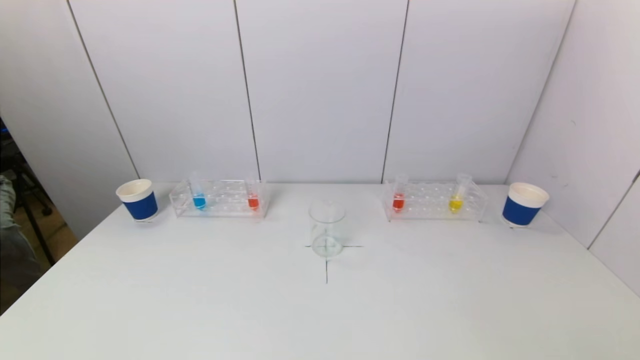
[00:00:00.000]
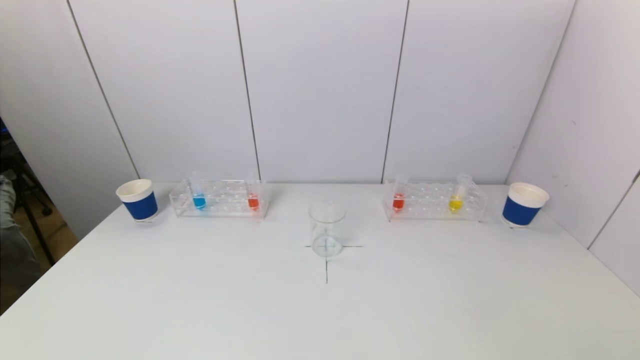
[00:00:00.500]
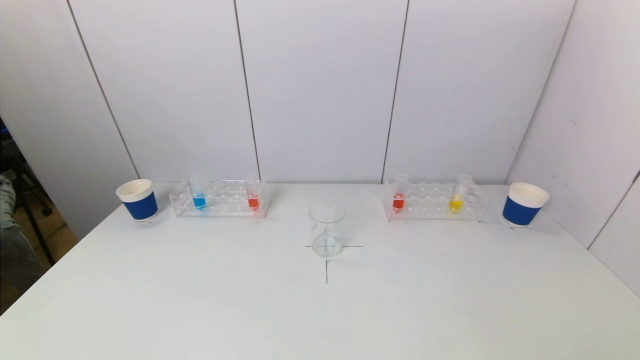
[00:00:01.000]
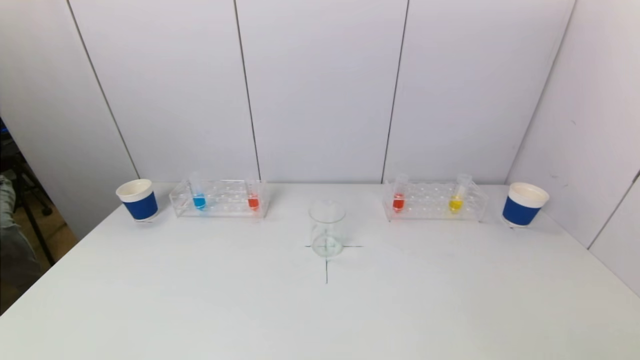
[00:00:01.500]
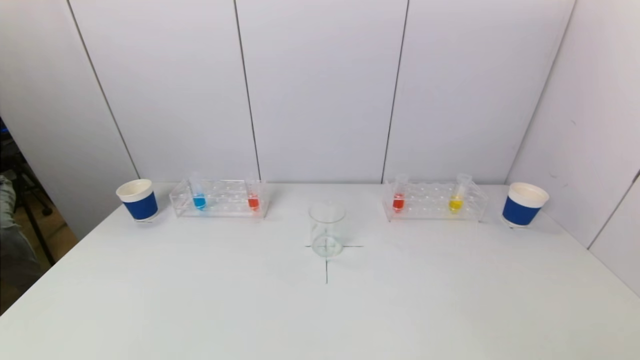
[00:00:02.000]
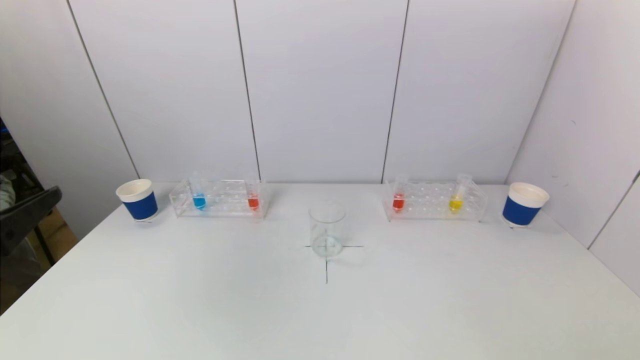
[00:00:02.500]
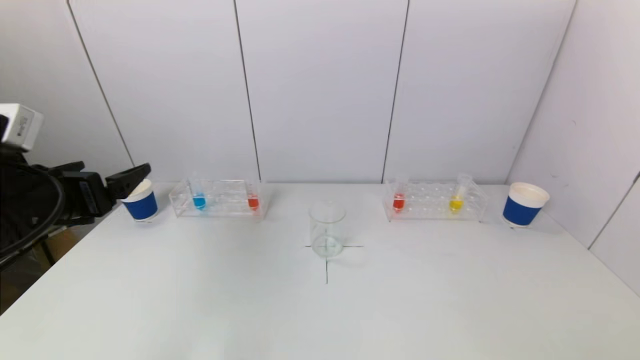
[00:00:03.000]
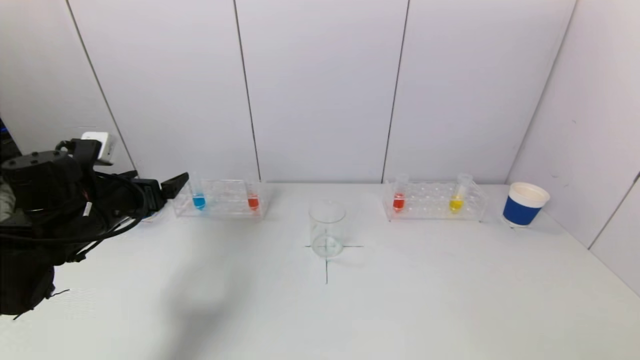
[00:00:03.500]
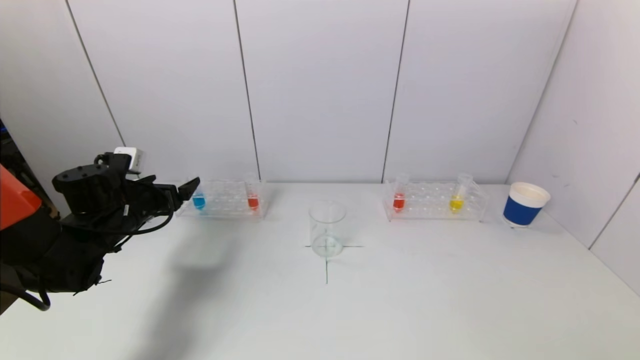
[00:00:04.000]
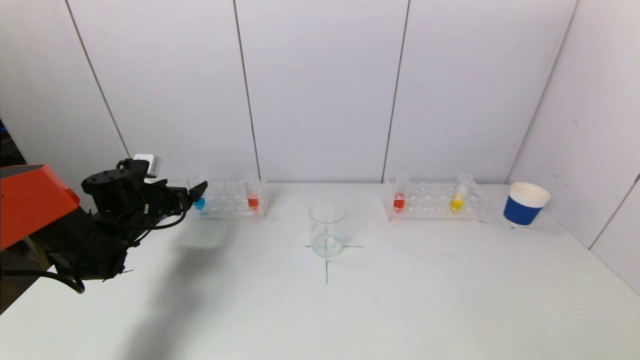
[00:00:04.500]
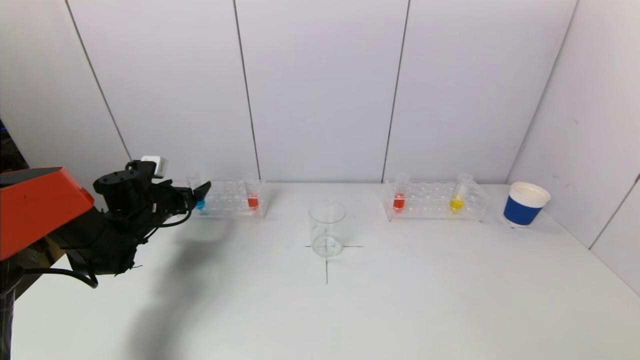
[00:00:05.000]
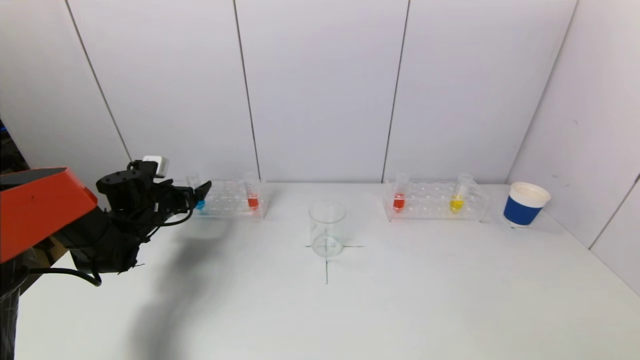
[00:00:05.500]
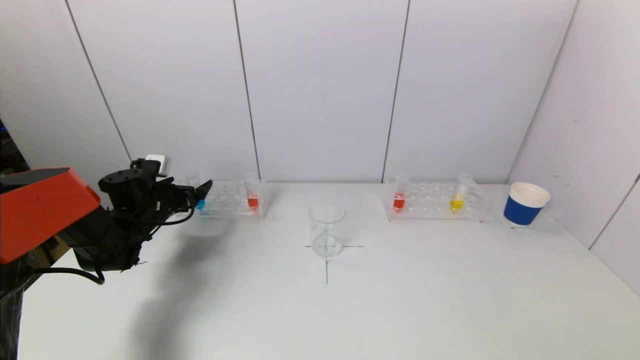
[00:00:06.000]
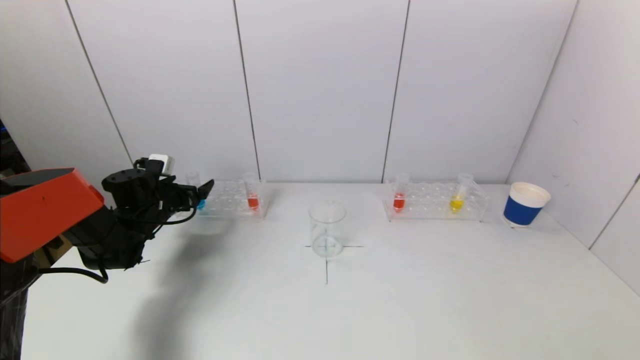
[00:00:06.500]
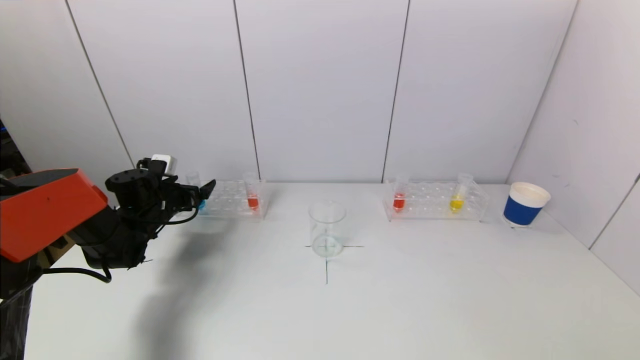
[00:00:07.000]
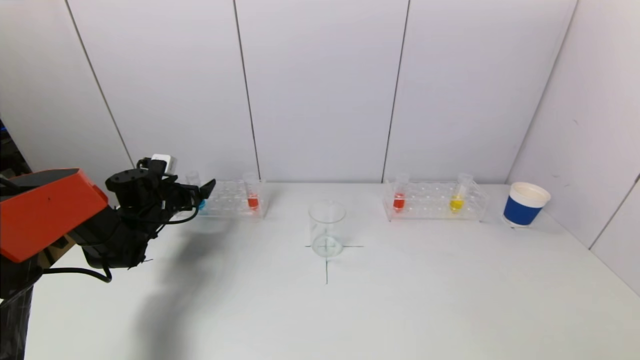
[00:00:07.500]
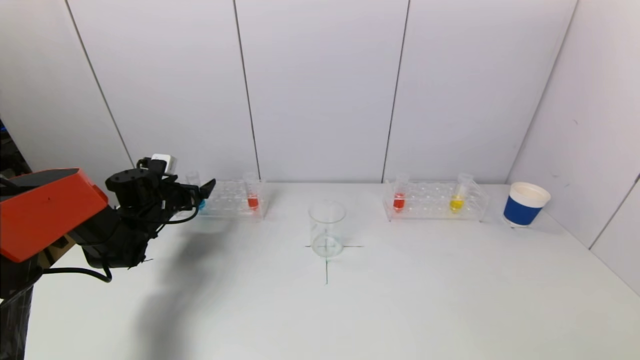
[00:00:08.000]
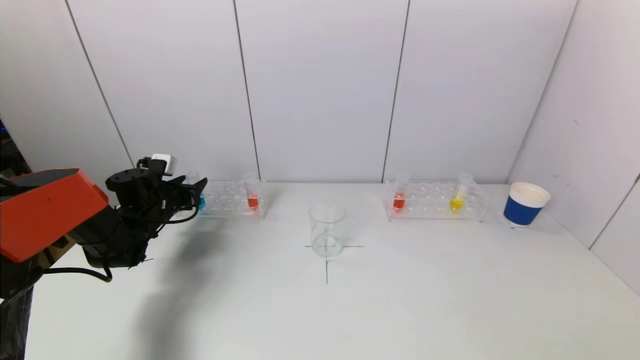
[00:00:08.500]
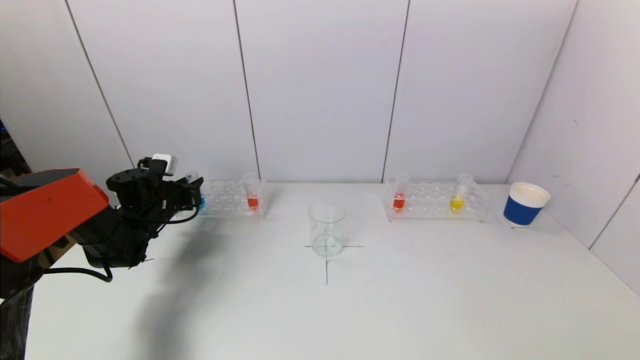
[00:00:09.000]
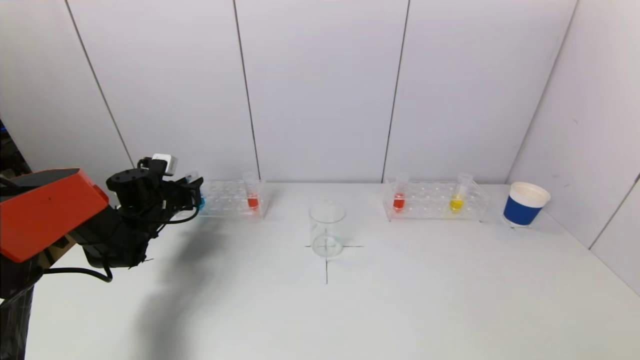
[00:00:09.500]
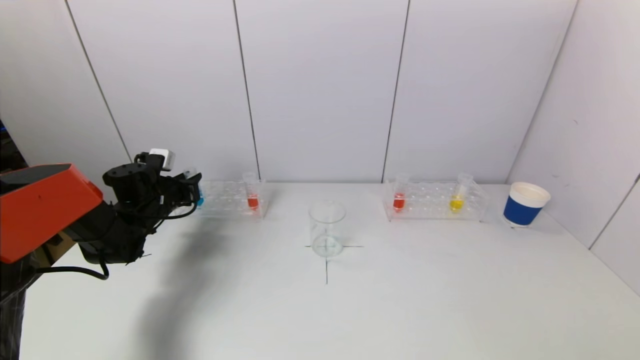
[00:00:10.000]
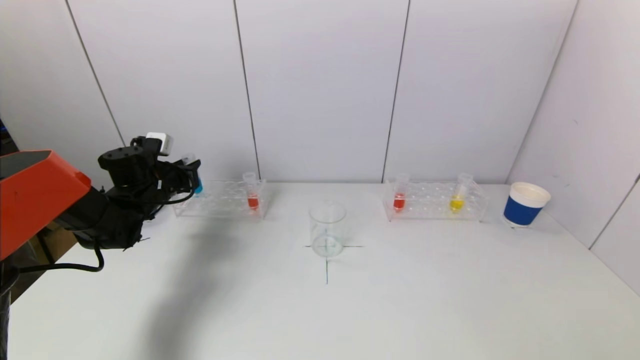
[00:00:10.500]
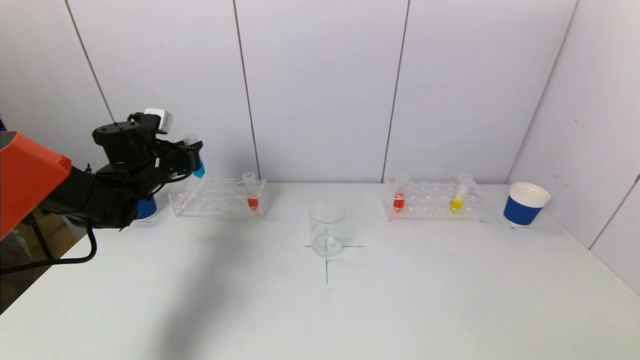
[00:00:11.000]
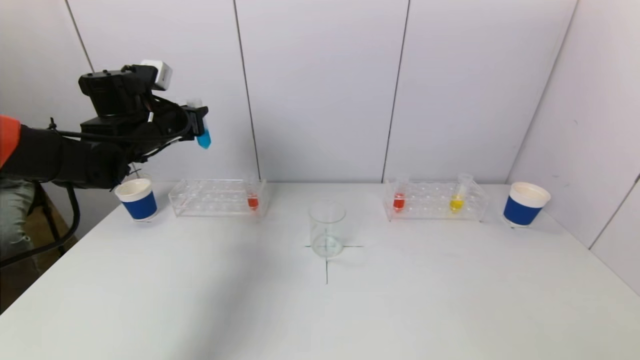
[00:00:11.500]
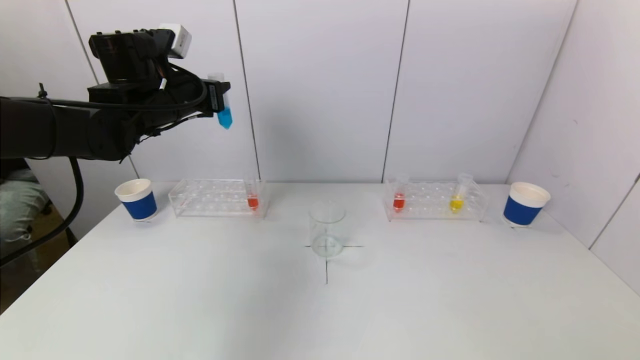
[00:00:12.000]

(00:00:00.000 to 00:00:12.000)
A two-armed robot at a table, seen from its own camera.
Task of the whole recording: pick up a test tube with pigment on left test tube rack and a test tube with pigment on right test tube rack by grippers and pour them into the beaker.
Step, 00:00:00.000 - 00:00:09.000: Grasp the blue reagent with the left gripper.
00:00:02.000 - 00:00:04.000: The left gripper moves forward, some 40 cm.
00:00:04.000 - 00:00:06.000: The left gripper heads forward, covering some 5 cm.
00:00:06.000 - 00:00:08.000: Both grippers stay about where they are.
00:00:08.000 - 00:00:10.000: The left gripper closes.
00:00:10.000 - 00:00:12.000: The left gripper heads upward and to the right, covering some 25 cm.

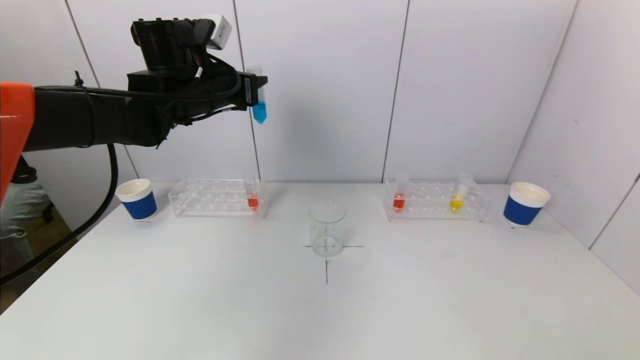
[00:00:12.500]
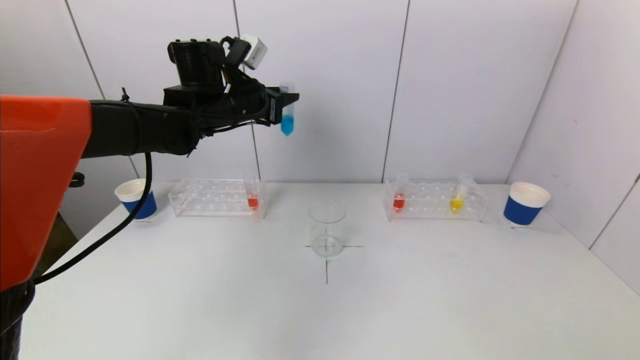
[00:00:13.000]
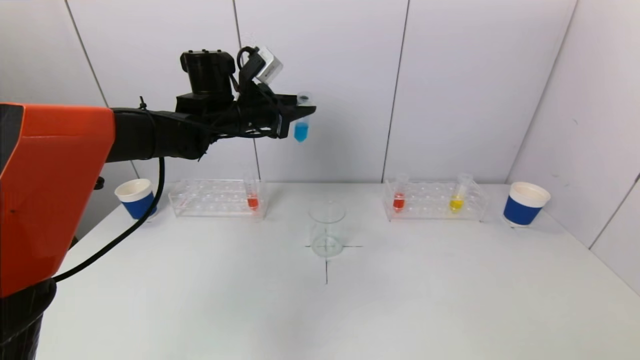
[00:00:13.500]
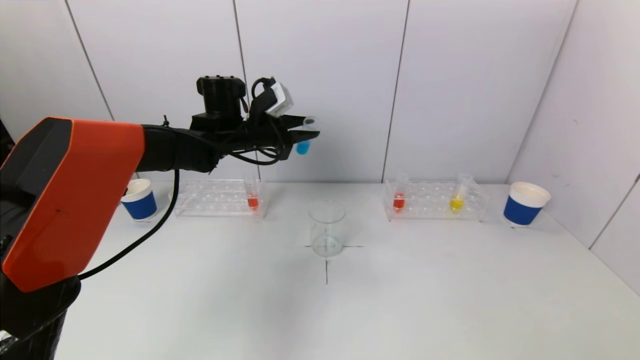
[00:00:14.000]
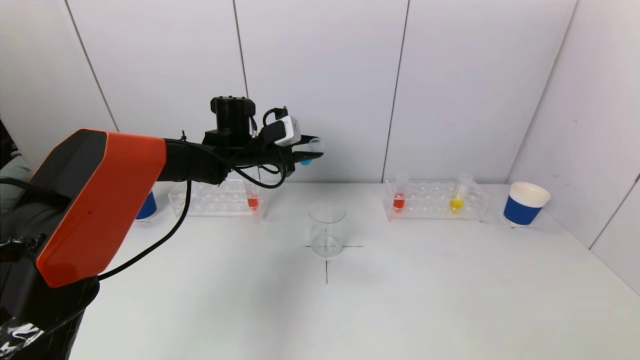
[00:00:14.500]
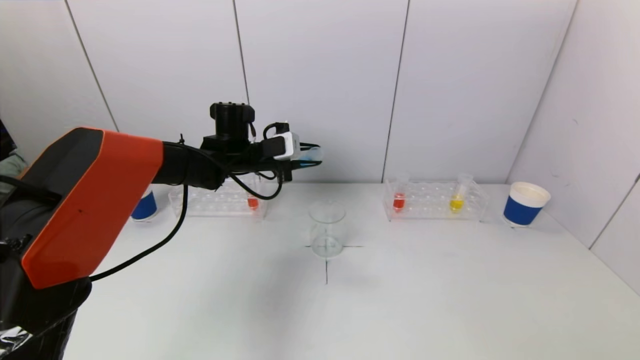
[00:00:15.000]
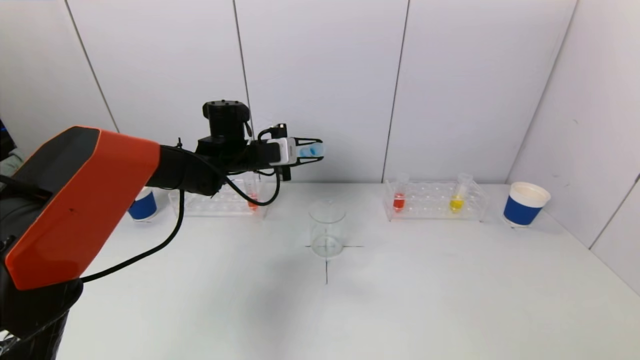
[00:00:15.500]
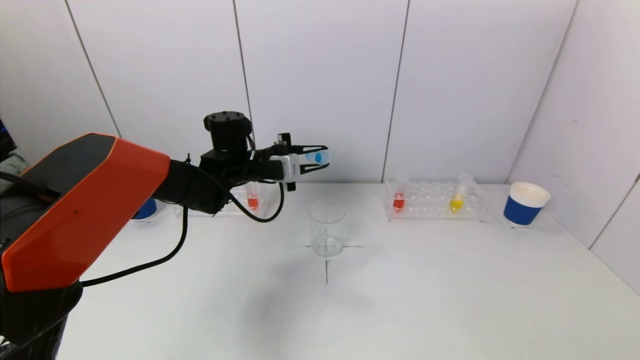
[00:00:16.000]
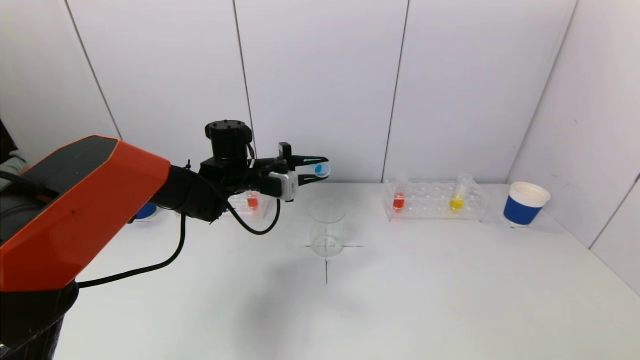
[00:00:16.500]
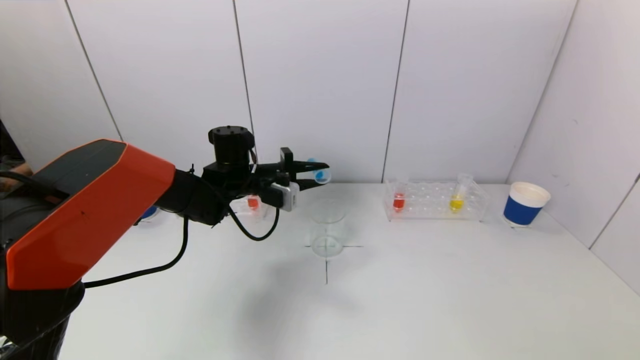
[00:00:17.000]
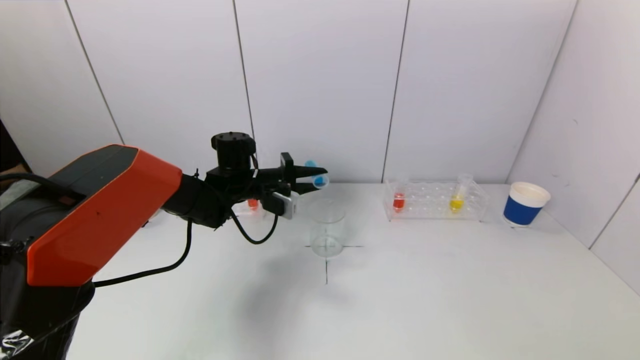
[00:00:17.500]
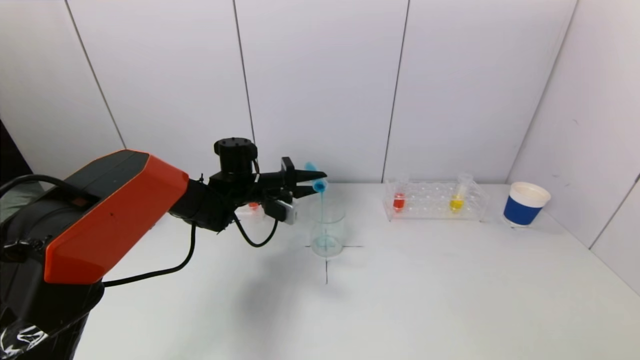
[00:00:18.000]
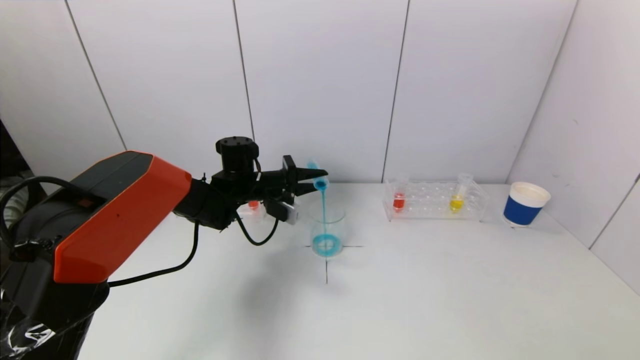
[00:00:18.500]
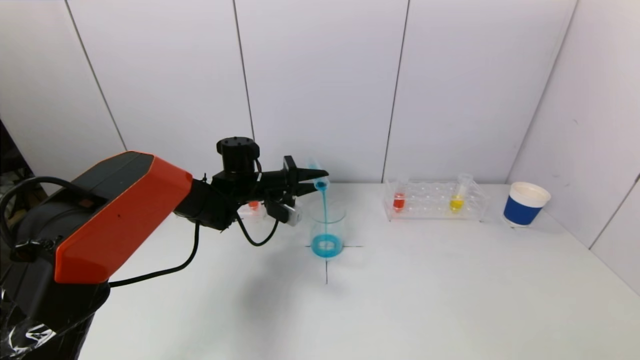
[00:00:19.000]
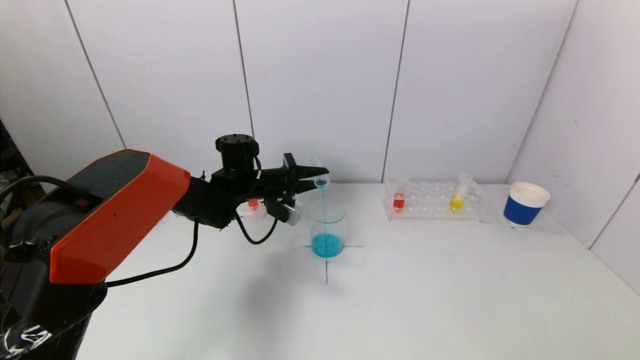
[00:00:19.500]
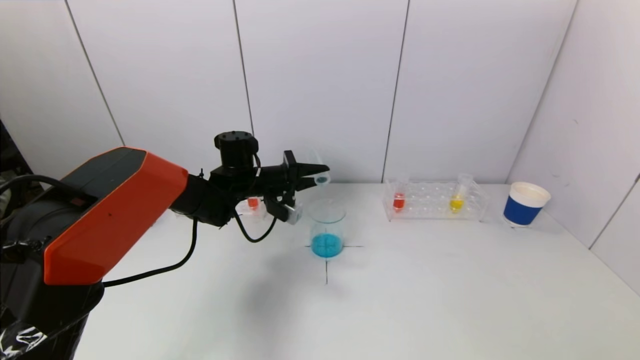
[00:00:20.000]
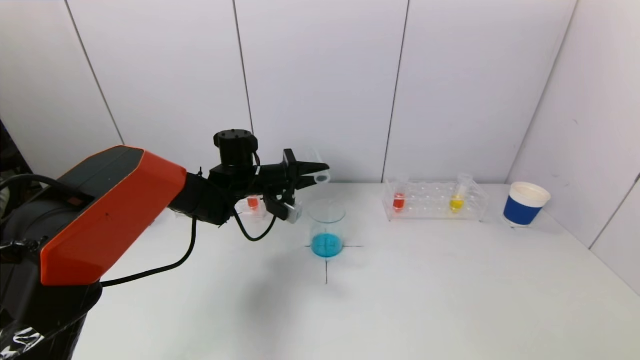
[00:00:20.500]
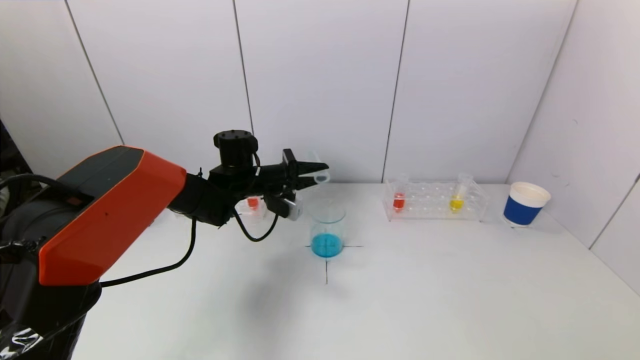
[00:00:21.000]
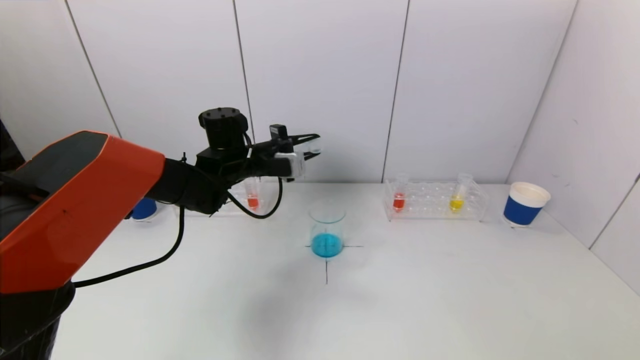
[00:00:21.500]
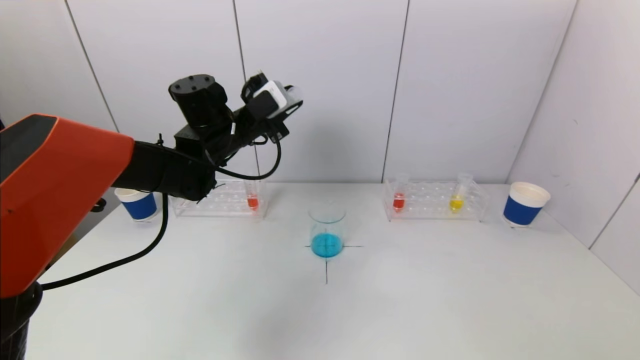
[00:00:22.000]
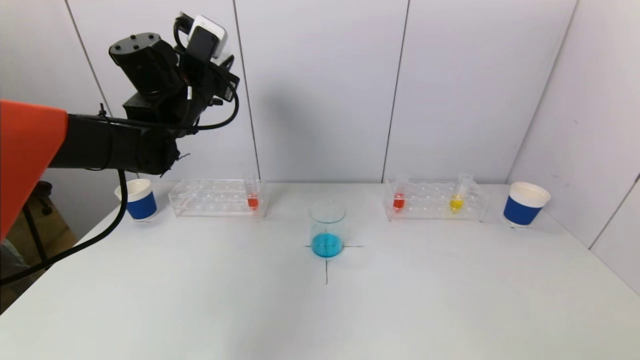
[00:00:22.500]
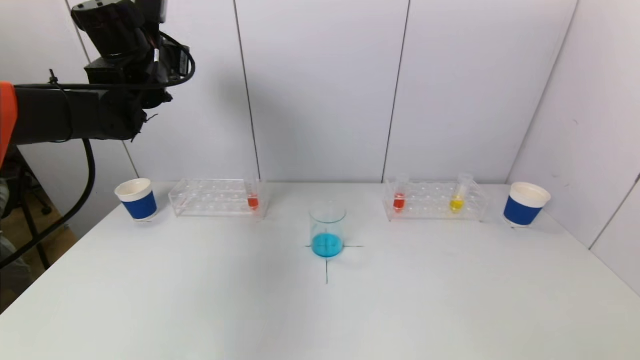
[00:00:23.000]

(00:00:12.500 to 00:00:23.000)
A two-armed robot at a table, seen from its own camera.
Task of the whole recording: pick up a test tube with pigment on left test tube rack and a test tube with pigment on right test tube rack by grippers and pour them into the beaker.
Step, 00:00:12.500 - 00:00:20.500: Pour the blue reagent into the graduated cylinder with the left gripper.
00:00:12.500 - 00:00:14.500: The left gripper goes approximately 15 cm downward and forward.
00:00:14.500 - 00:00:16.500: The left gripper ends up about 5 cm from where it was.
00:00:19.000 - 00:00:21.000: The grippers stay close to where they were, moving slightly.
00:00:21.000 - 00:00:23.000: The left gripper shifts some 25 cm upward and to the left.
